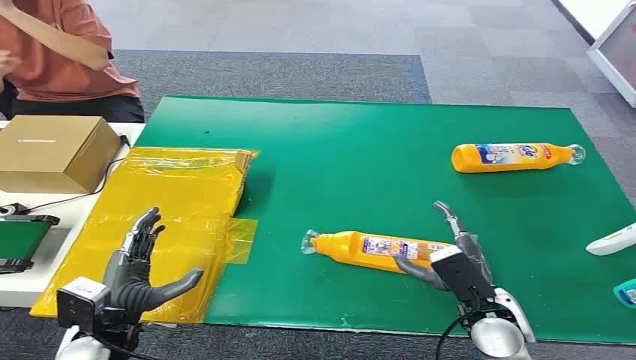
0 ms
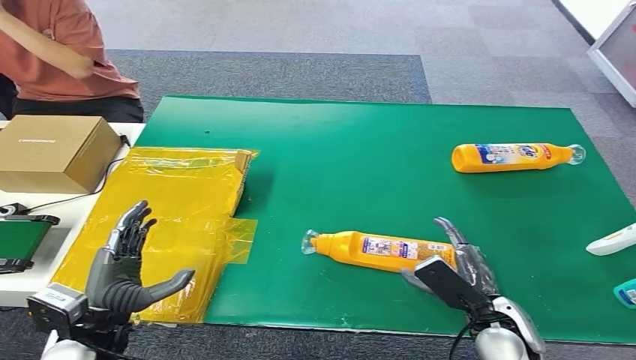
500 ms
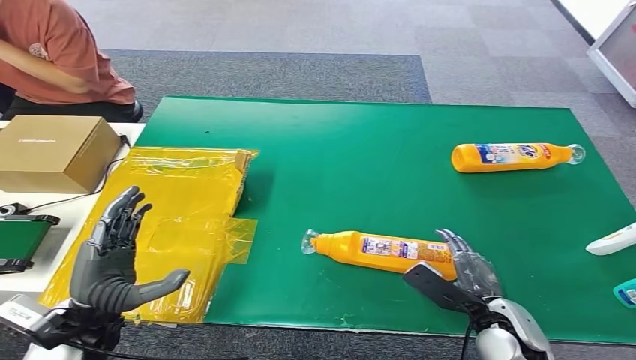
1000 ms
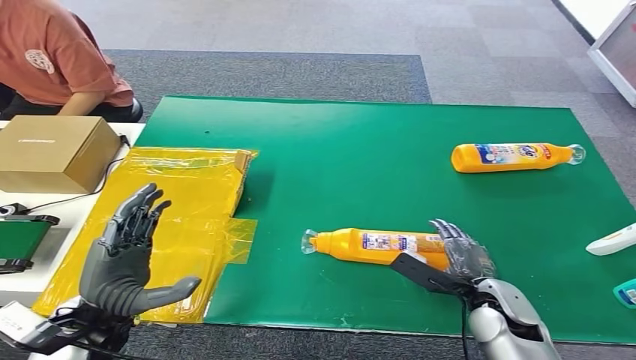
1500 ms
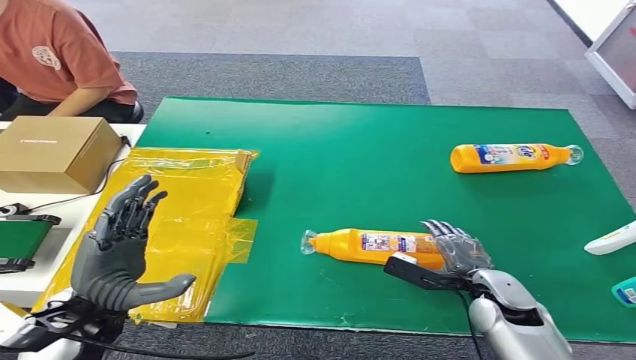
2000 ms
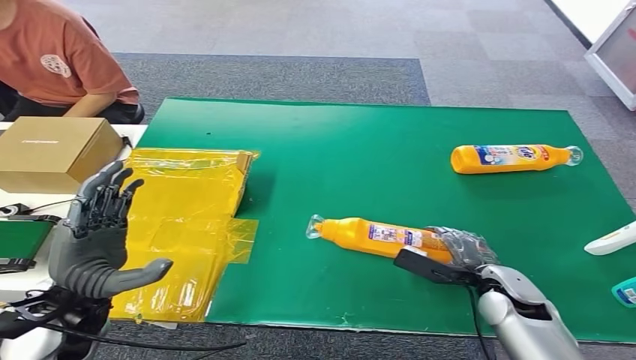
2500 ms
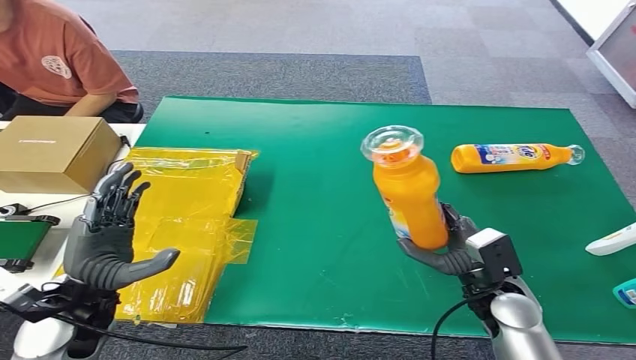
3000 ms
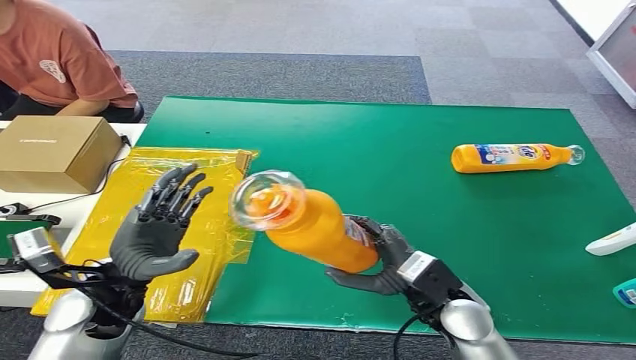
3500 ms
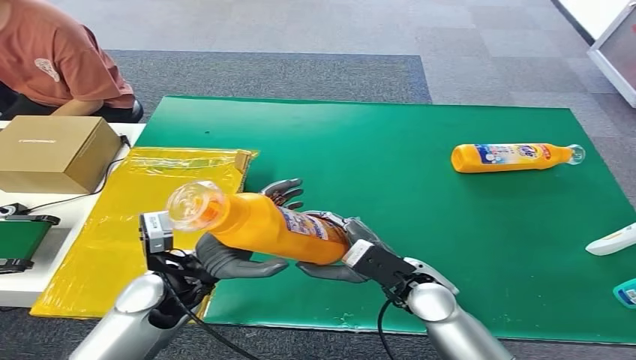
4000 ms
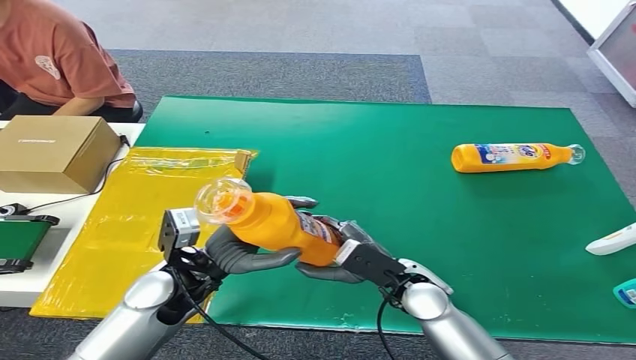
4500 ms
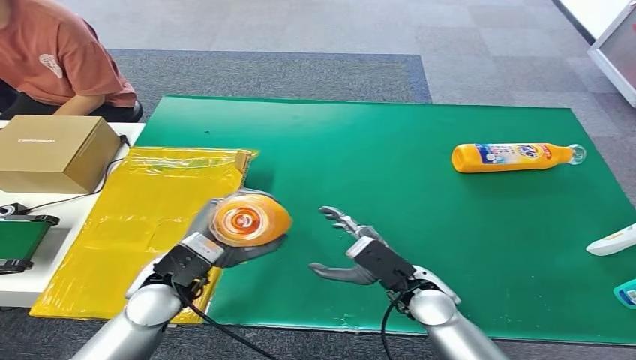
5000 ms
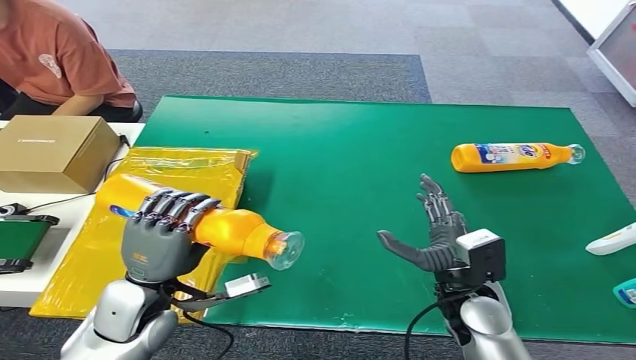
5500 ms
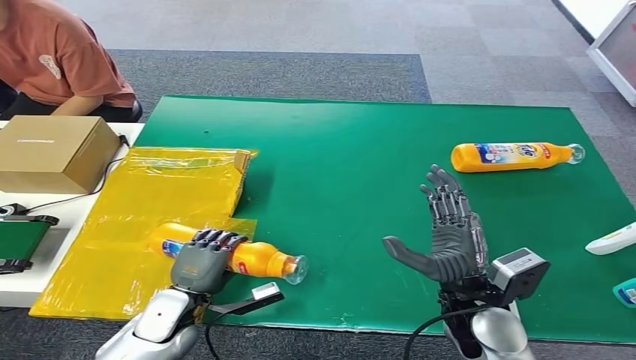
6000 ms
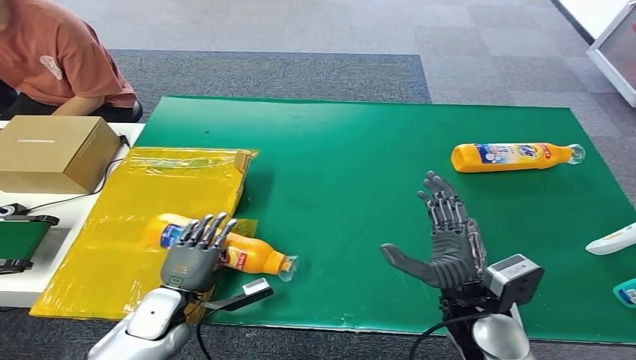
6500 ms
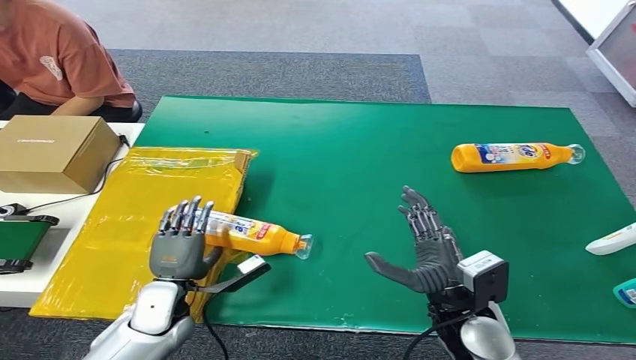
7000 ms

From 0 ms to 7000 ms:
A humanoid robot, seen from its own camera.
Step, from 0 ms to 3000 ms: Pick up the bottle from the table.
Step, from 3500 ms to 7000 ms: Turn the bottle to the front side.
From 3500 ms to 5000 ms: The left hand goes some 5 cm to the right.
From 5000 ms to 7000 ms: The left hand travels downward by roughly 10 cm. Meanwhile the right hand shifts by about 5 cm.
